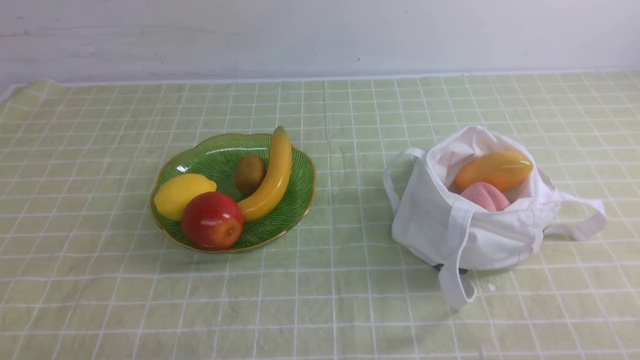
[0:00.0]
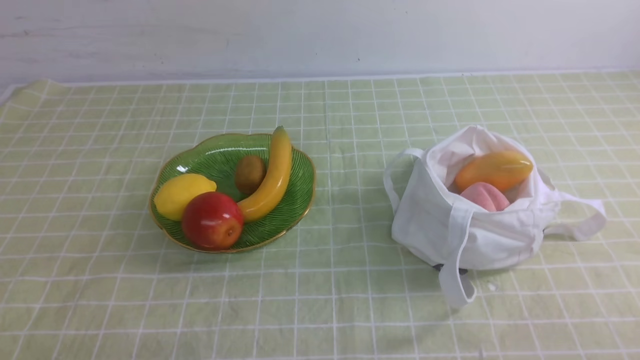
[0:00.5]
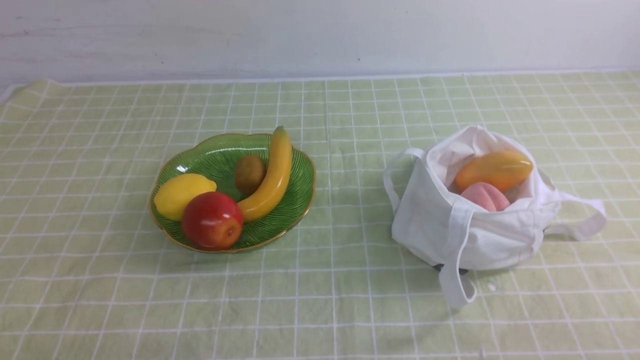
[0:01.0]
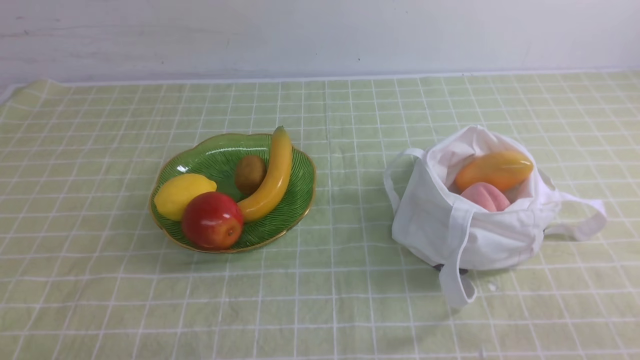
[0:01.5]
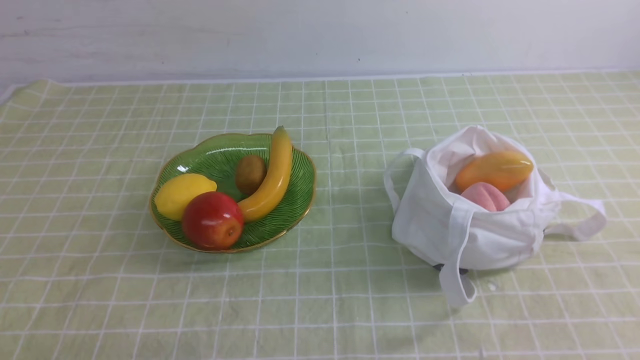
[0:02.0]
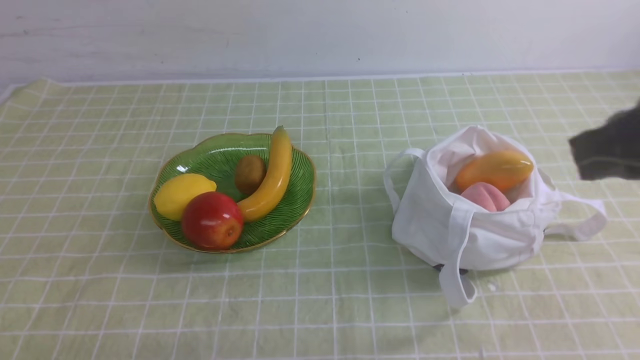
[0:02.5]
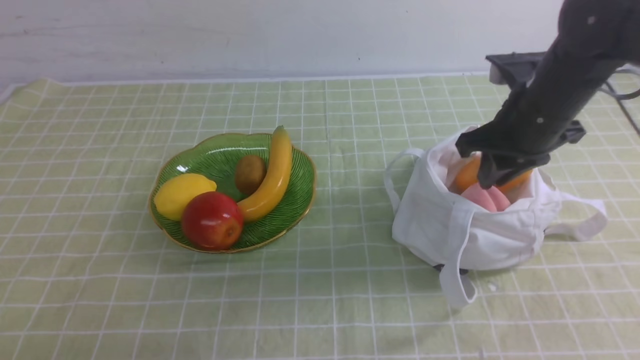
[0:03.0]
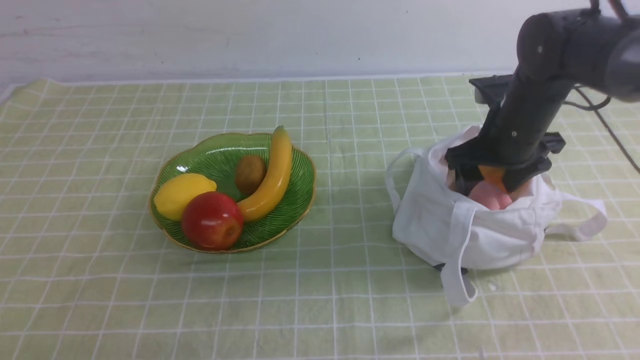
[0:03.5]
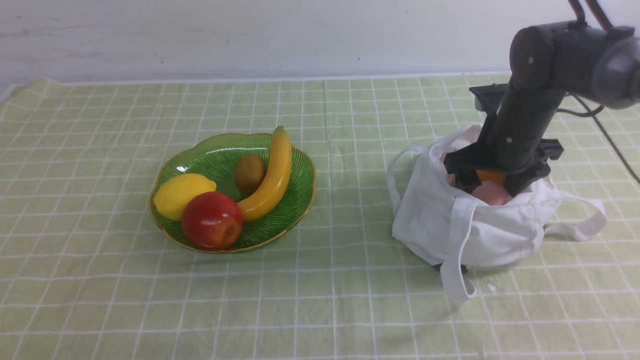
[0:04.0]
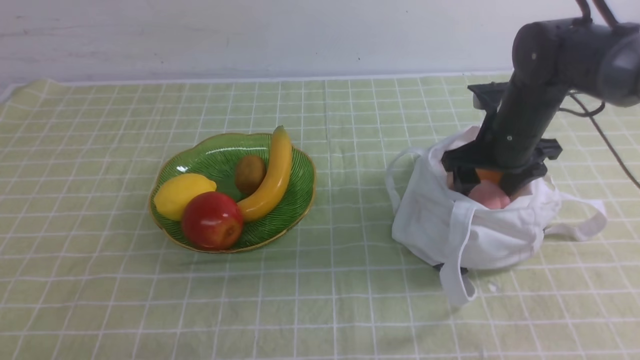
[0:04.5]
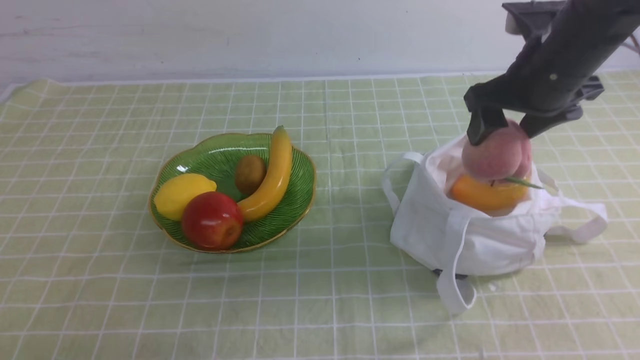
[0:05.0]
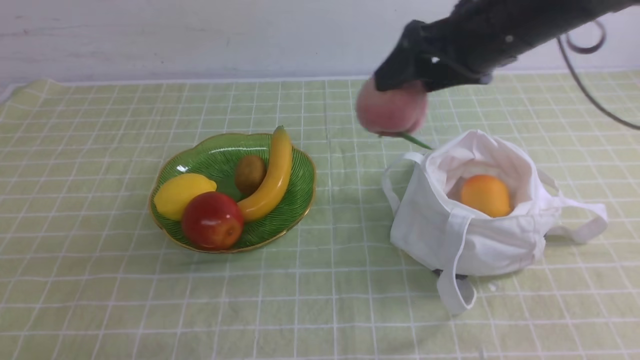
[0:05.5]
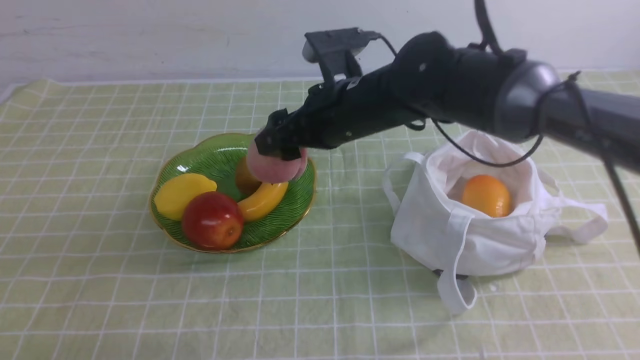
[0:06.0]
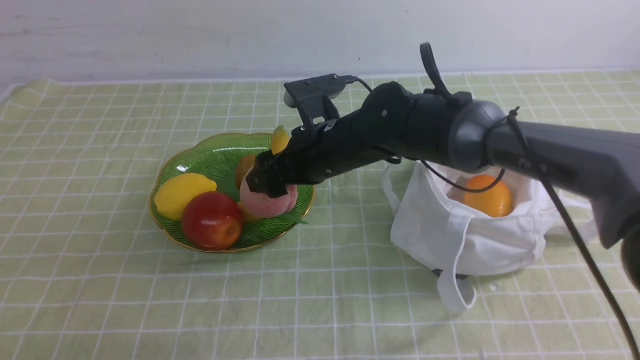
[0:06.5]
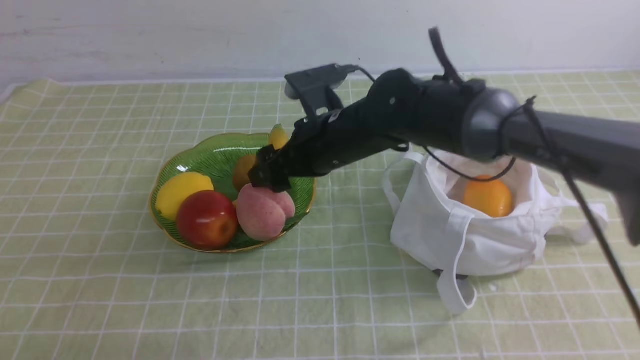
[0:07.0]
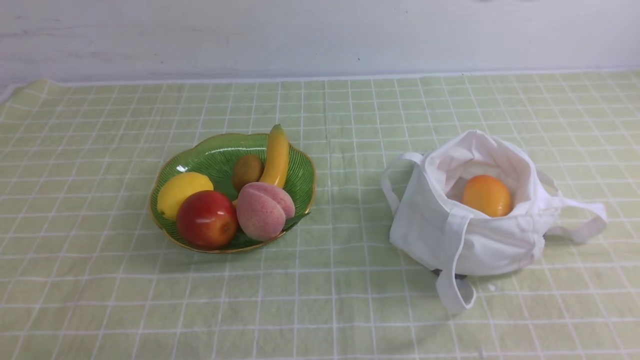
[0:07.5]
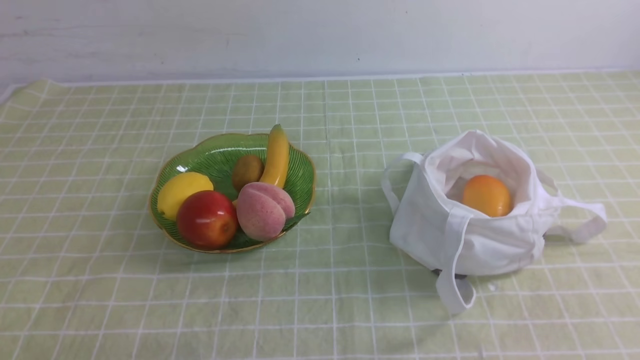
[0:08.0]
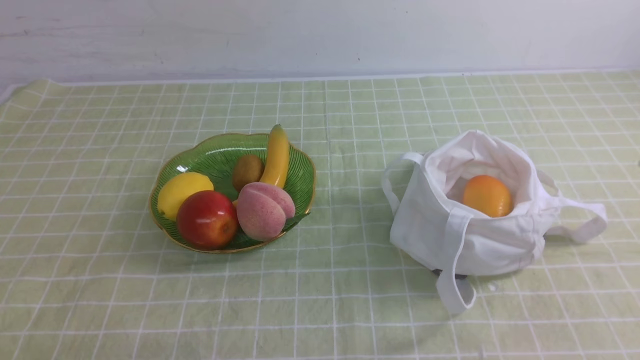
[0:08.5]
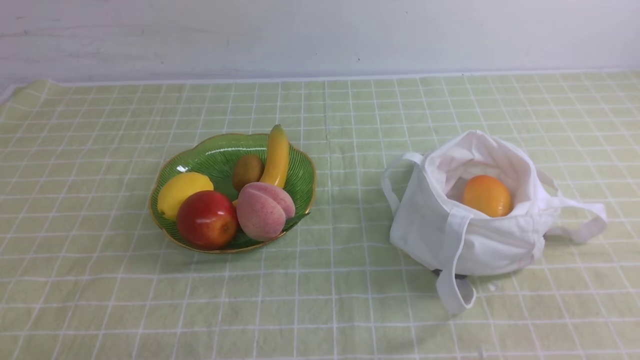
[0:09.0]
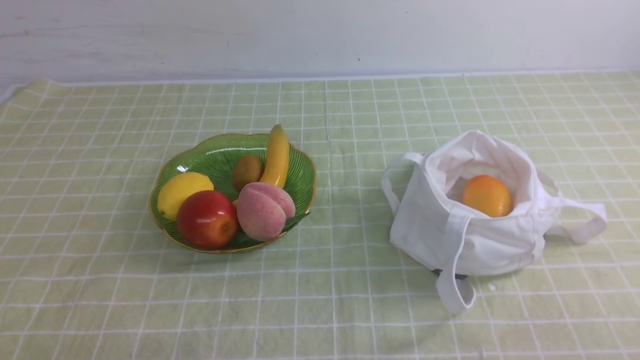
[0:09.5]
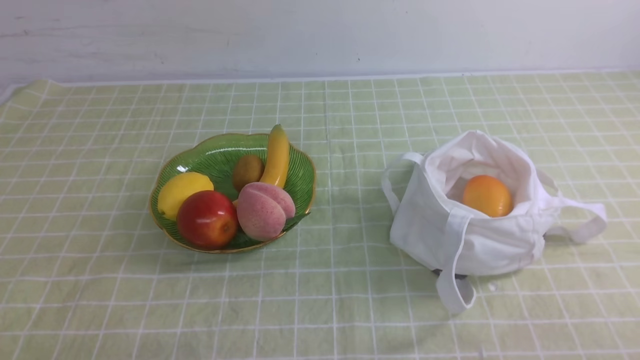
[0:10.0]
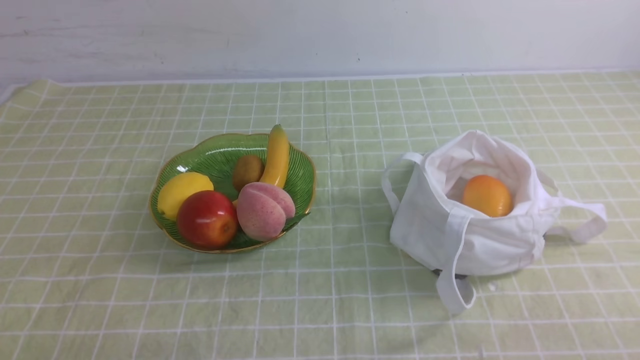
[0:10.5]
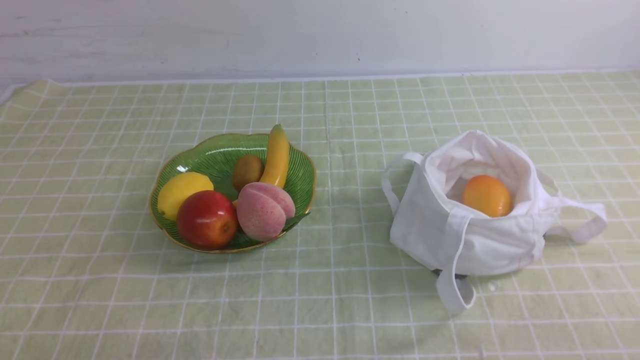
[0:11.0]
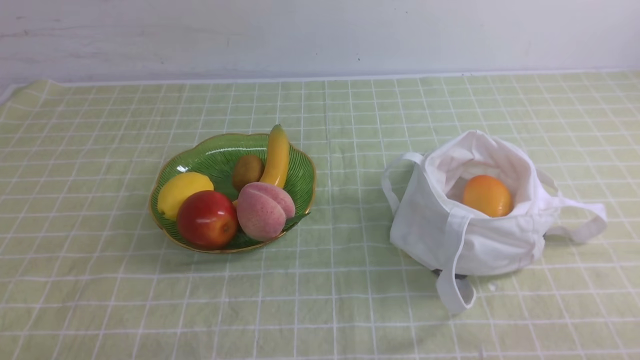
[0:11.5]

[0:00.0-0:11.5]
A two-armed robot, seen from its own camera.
Step, 0:00.0 to 0:04.5: use the right arm to grab a peach from the bag.
Step, 0:05.0 to 0:06.5: use the right arm to put the peach into the empty plate on the left.
0:02.0 to 0:04.0: The right gripper is displaced forward by approximately 35 cm, and opens up.
0:04.0 to 0:06.0: The right gripper travels to the left by approximately 20 cm.
0:06.0 to 0:07.5: The right gripper goes some 30 cm upward, to the right and backward, and closes.
